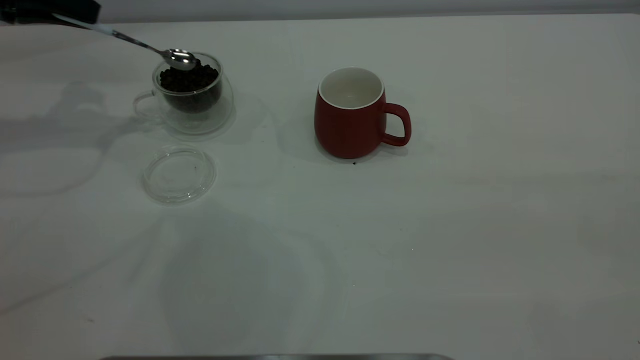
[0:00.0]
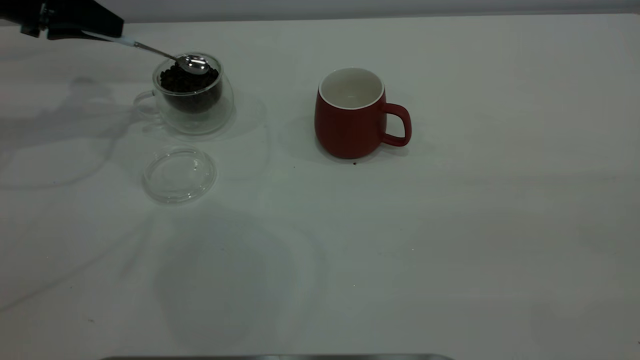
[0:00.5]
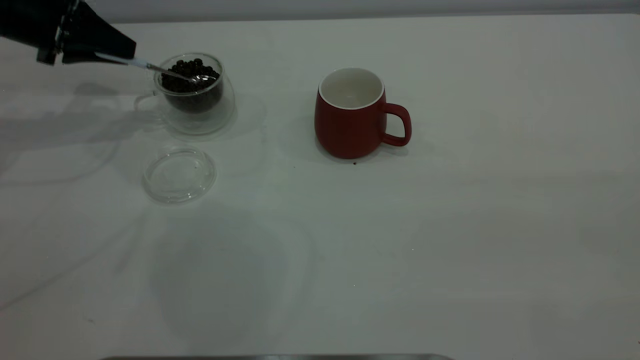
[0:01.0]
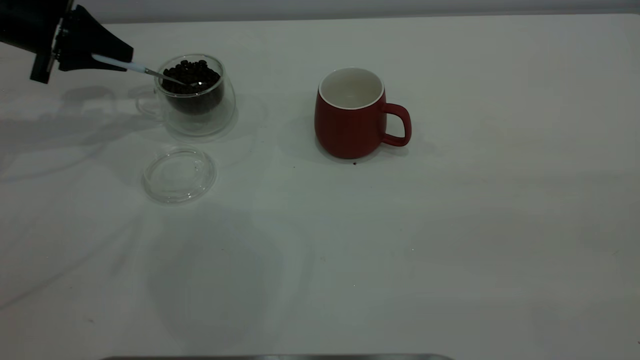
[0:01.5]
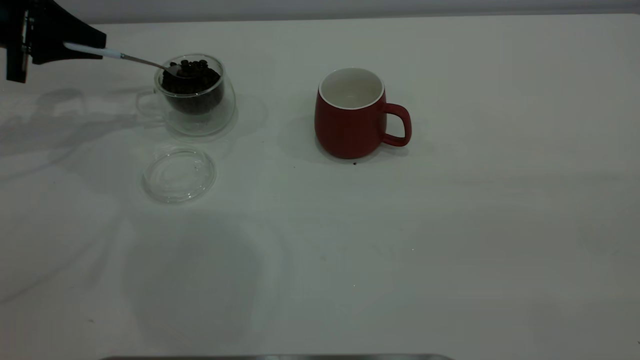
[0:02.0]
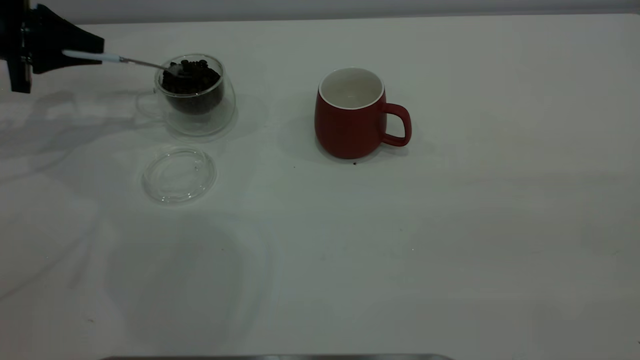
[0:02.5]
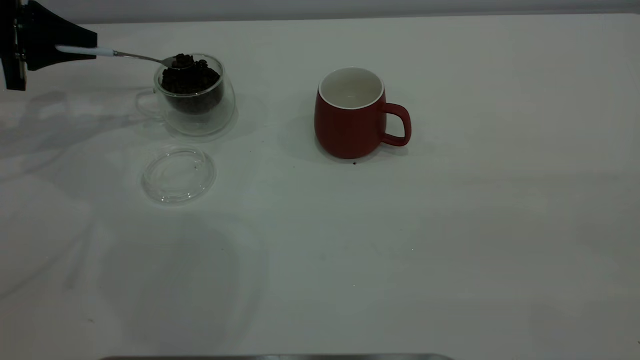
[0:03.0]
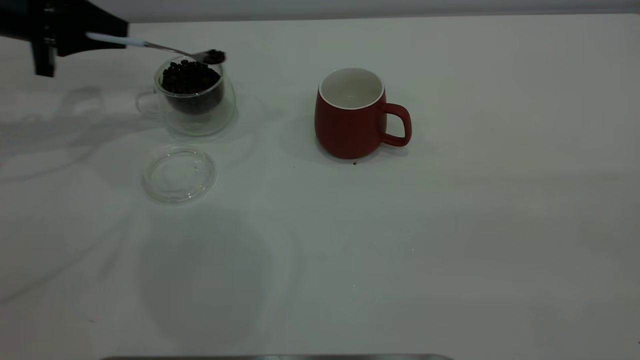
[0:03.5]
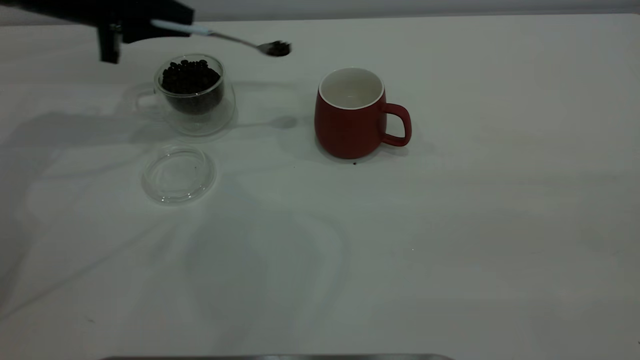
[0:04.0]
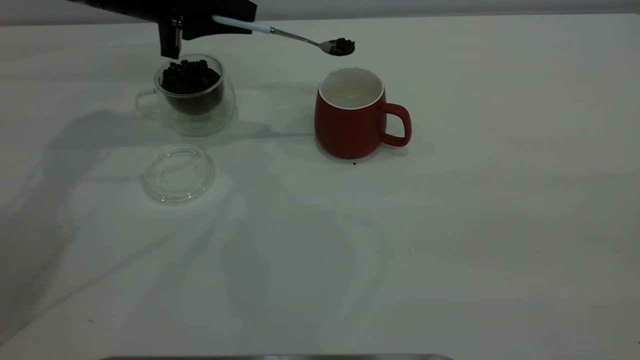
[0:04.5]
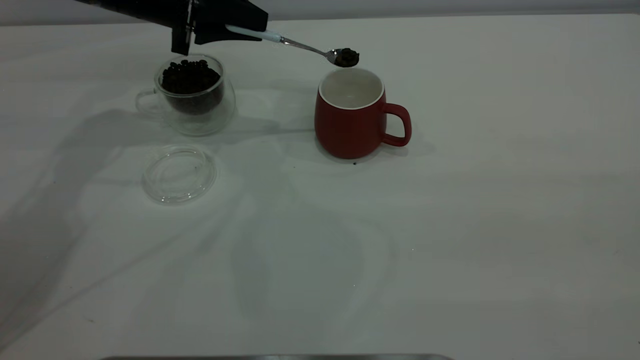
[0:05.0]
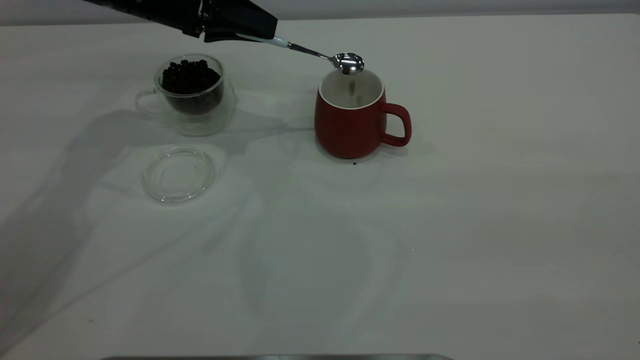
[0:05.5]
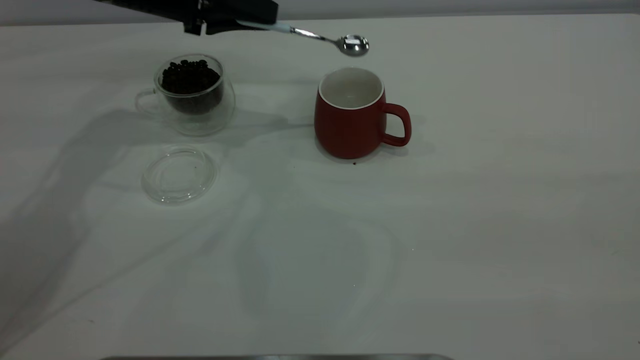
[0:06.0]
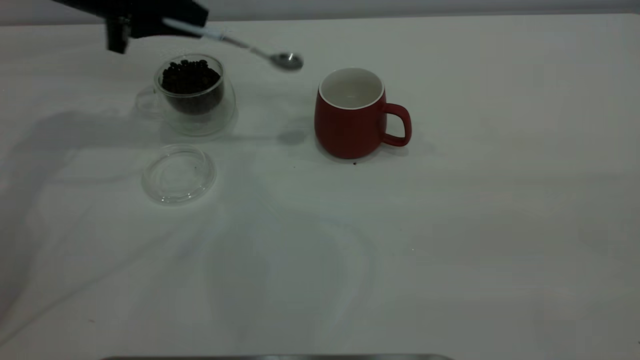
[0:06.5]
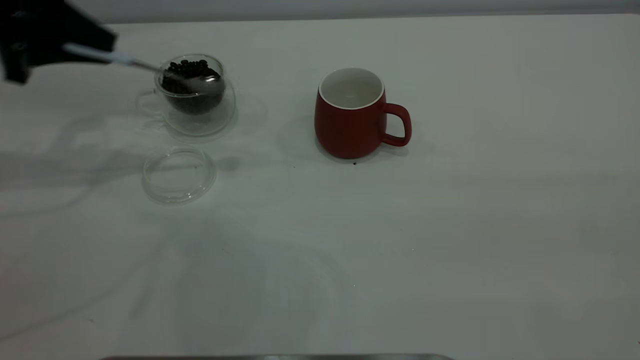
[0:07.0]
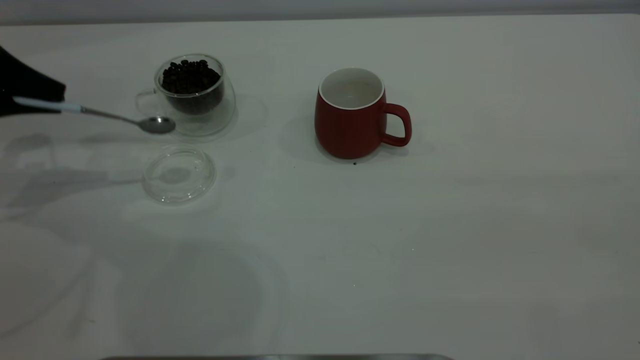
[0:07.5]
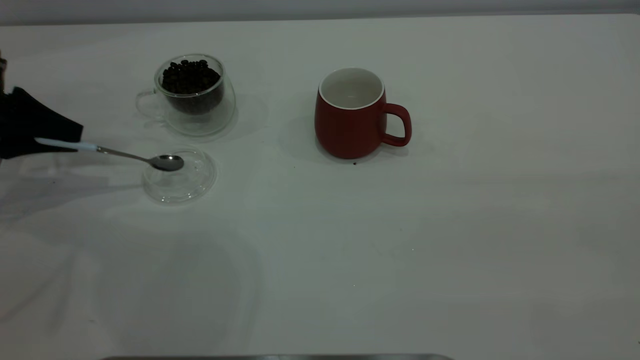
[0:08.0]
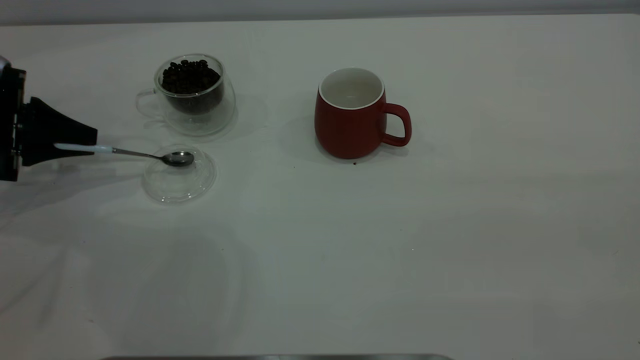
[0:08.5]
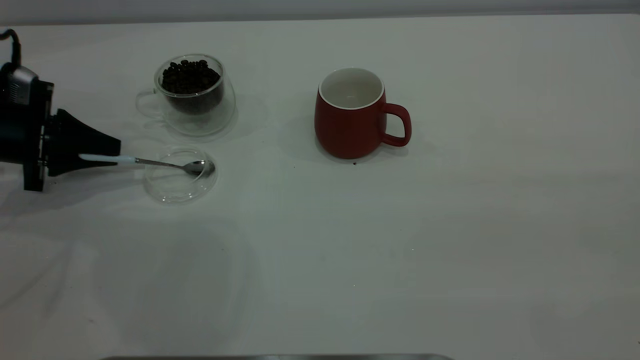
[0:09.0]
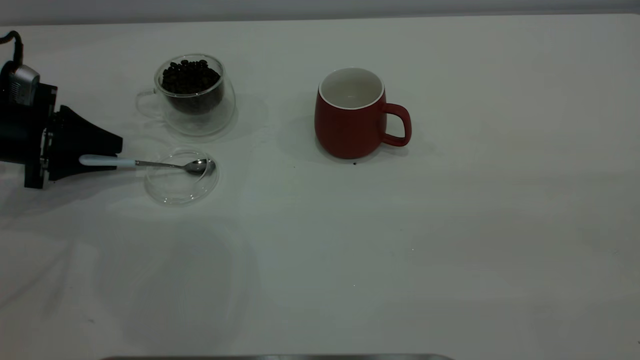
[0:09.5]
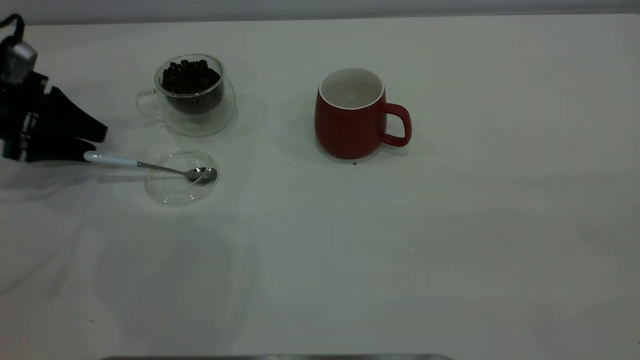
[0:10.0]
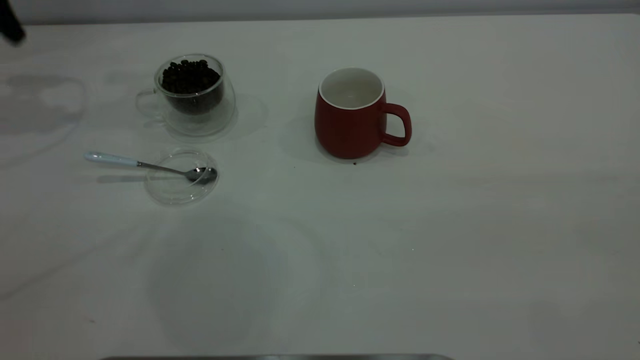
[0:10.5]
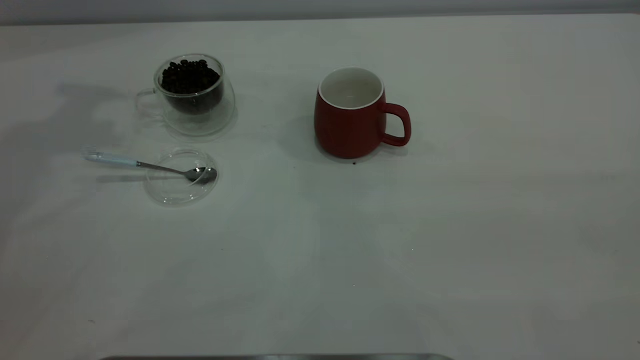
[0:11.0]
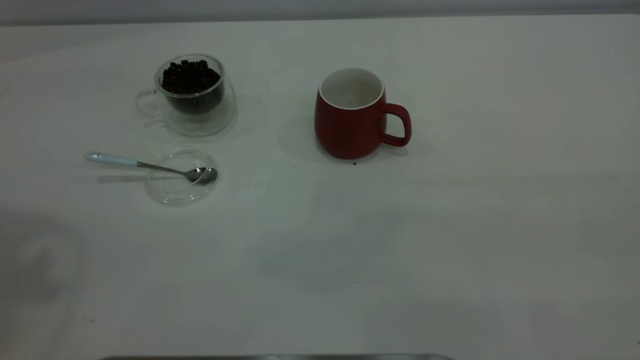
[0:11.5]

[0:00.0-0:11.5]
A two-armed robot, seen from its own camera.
Task of the whole recording: the right gripper place the red cup in the center of the table, the left gripper take the blue spoon from the cup lid and scoop out the coffee beans from the coffee cup and put them into the red cup, the left gripper put the spoon back into the cup lid.
Step, 0:00.0 to 0:06.0: Scoop a spoonful of beans into the cup.
Step, 0:06.5 to 0:10.0: Place the spoon back in its original place.
0:00.0 to 0:02.0: The left gripper heads downward, covering roughly 5 cm.
0:02.0 to 0:04.0: The left gripper travels to the right by about 10 cm.
0:04.0 to 0:06.0: The left gripper shifts roughly 5 cm to the right.
0:06.0 to 0:07.5: The left gripper goes roughly 20 cm to the left and backward.
0:07.5 to 0:09.5: The left gripper is displaced downward by about 10 cm, and opens up.
0:09.5 to 0:11.5: The left gripper goes approximately 40 cm upward.

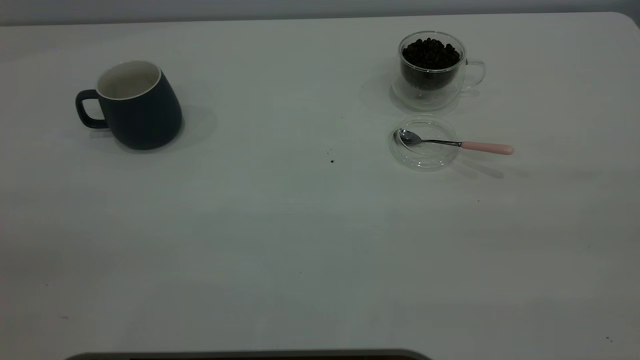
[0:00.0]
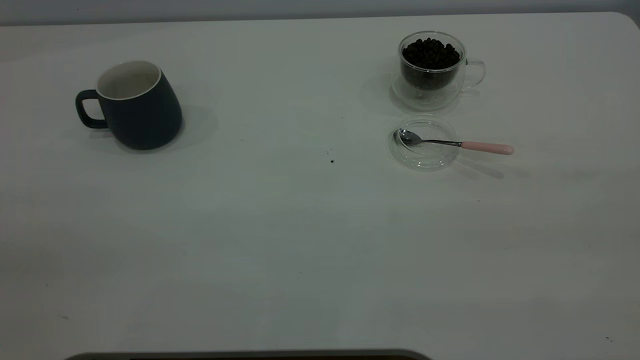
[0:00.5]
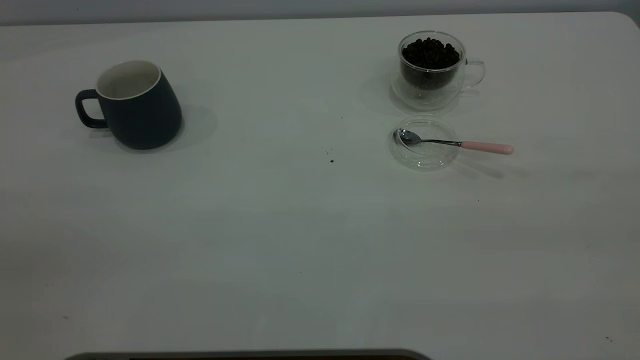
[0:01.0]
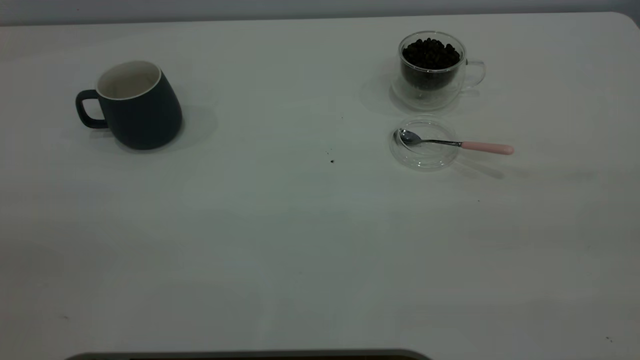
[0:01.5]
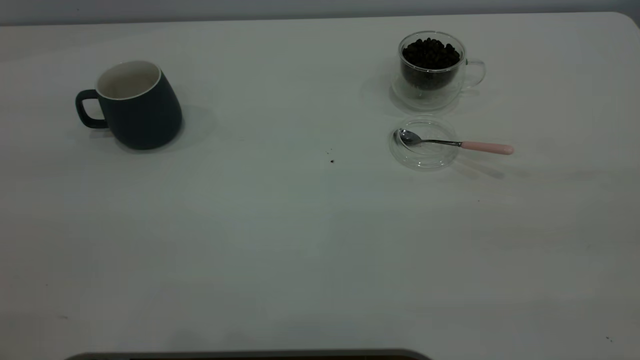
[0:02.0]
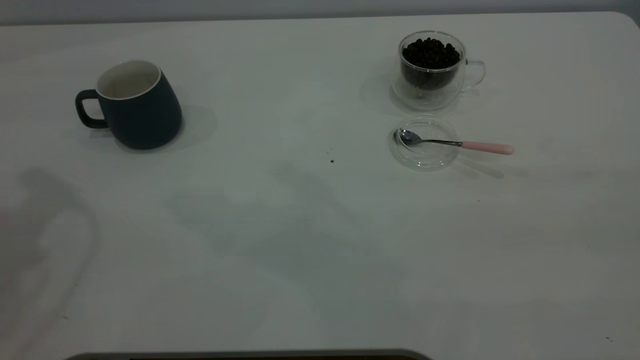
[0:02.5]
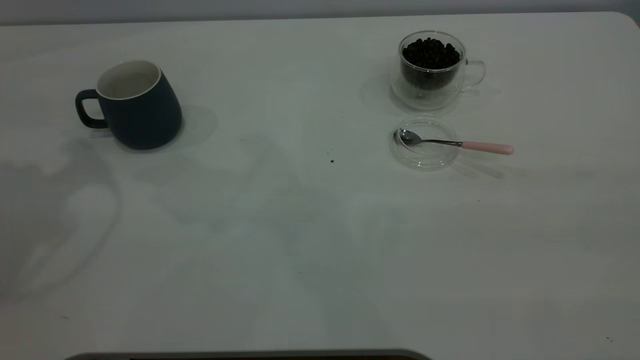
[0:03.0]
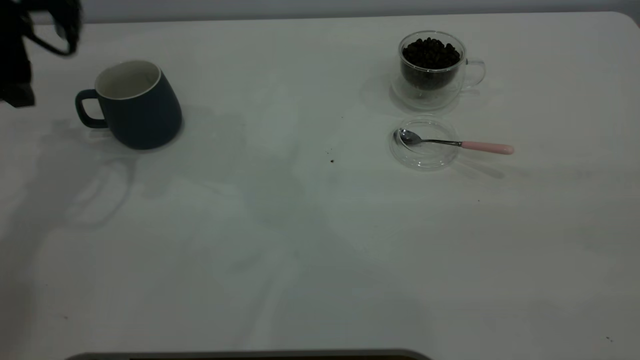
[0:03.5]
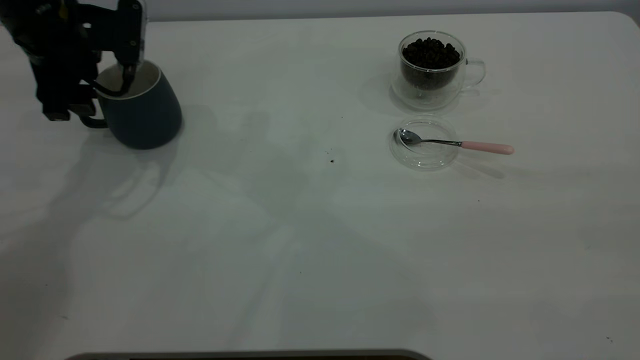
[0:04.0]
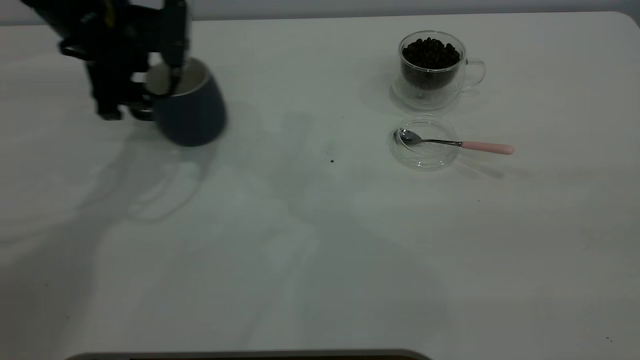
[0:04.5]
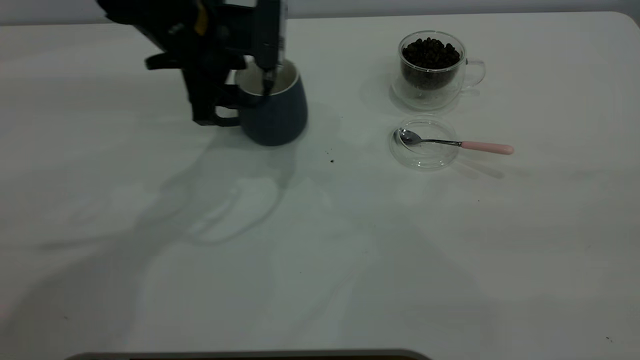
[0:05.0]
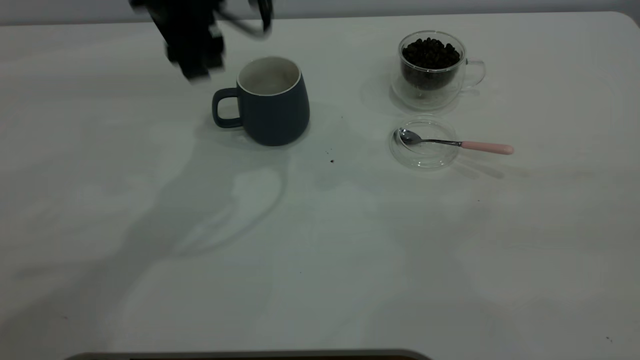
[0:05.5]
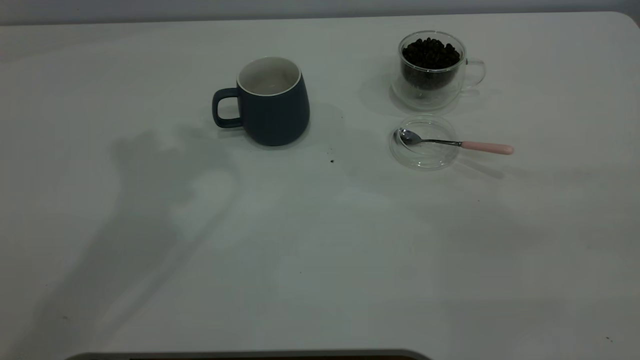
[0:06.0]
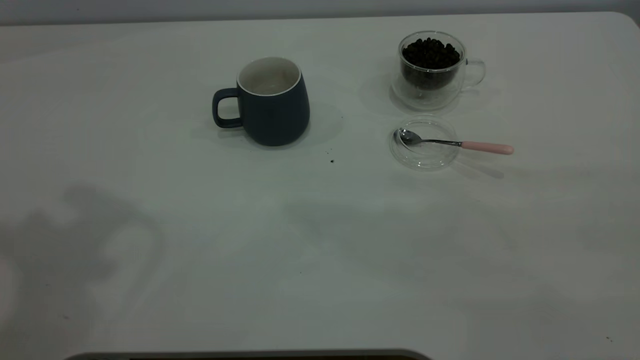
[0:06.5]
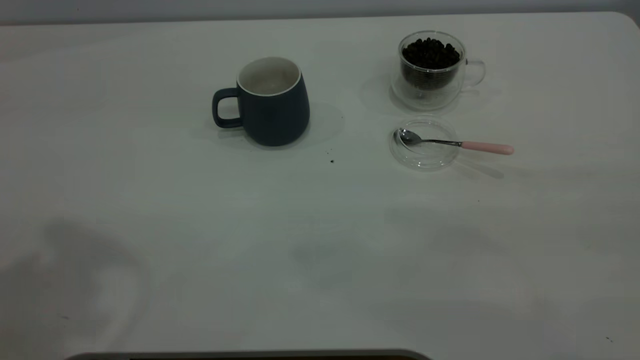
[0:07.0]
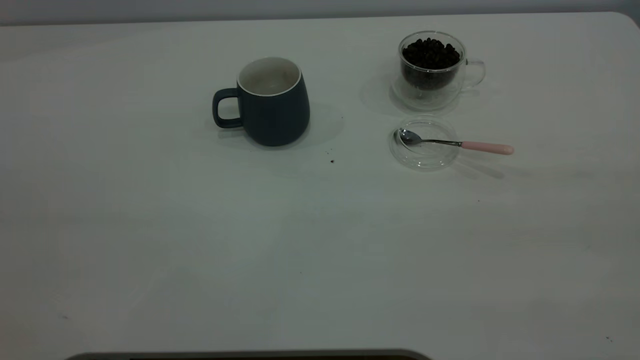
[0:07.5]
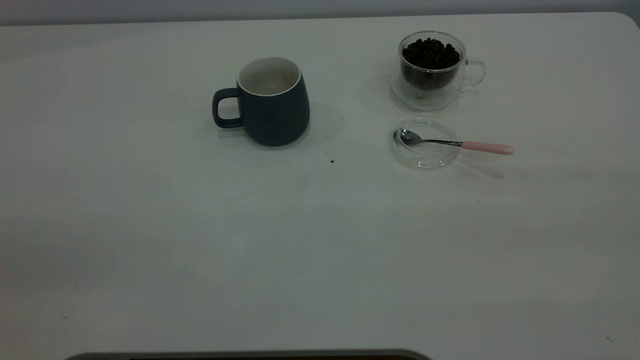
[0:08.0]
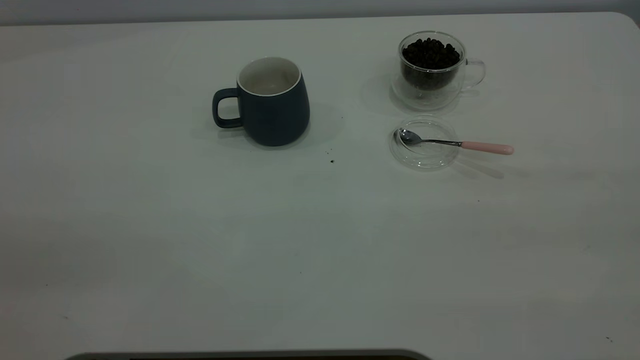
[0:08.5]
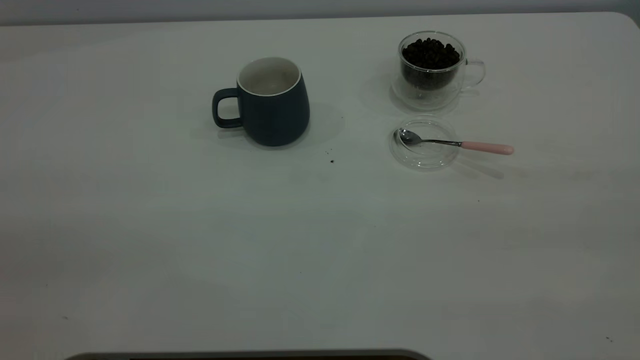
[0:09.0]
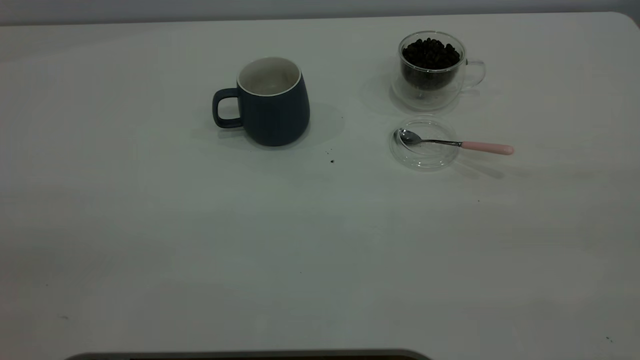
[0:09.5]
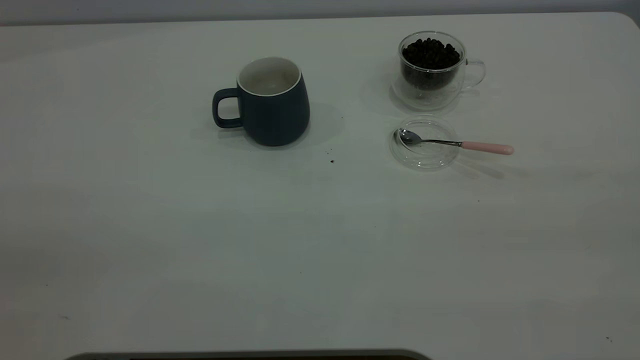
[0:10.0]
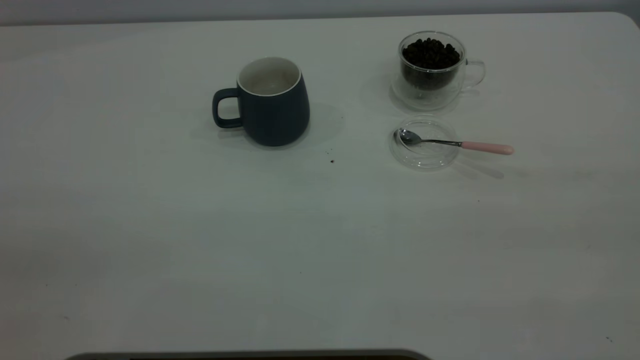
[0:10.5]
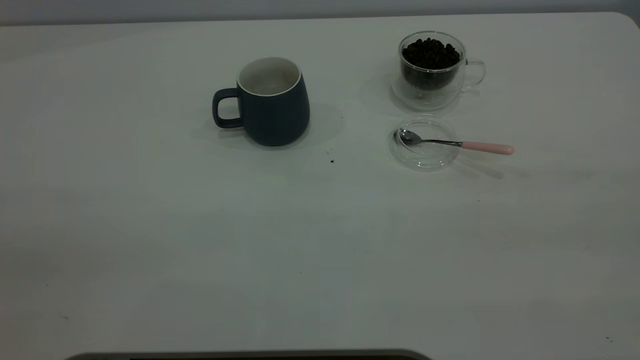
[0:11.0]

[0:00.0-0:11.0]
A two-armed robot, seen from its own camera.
Task of the whole recording: the left gripper place the grey cup in the center of the table, the right gripper take the pink spoon from the cup lid and scoop out the coffee beans from the coffee cup and put them into the grey cup, the right gripper put the spoon back into the cup lid.
Step, 0:00.0 to 0:05.0: Move the cup to the center of view.
0:02.0 to 0:03.5: The left gripper shifts about 35 cm forward and downward.
0:03.5 to 0:05.5: The left gripper travels to the right by some 15 cm.
0:05.5 to 0:07.5: The left gripper goes roughly 40 cm backward, upward and to the left.
